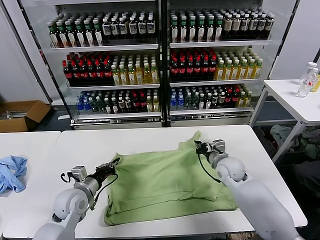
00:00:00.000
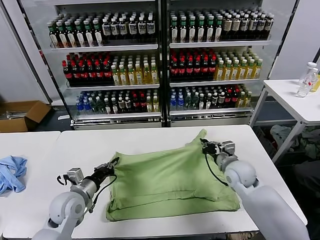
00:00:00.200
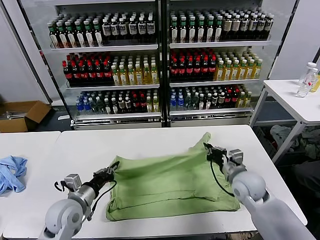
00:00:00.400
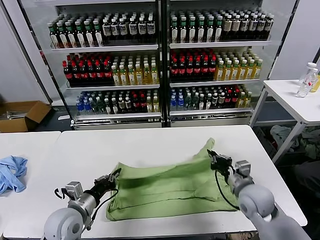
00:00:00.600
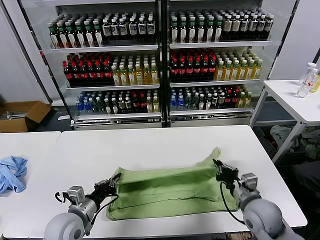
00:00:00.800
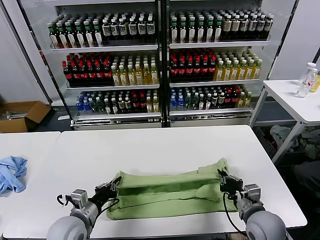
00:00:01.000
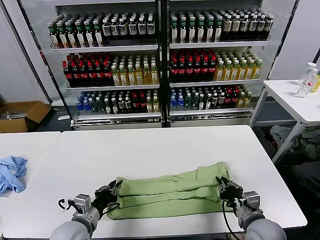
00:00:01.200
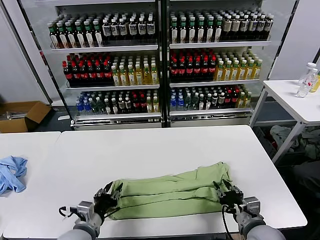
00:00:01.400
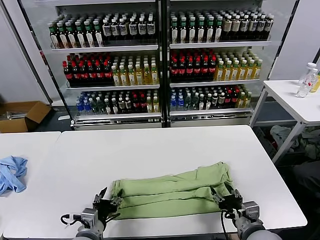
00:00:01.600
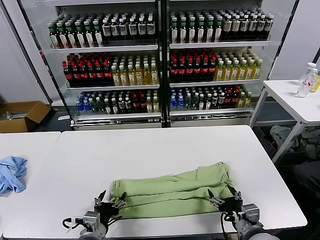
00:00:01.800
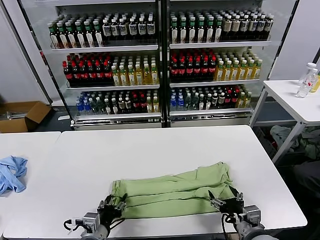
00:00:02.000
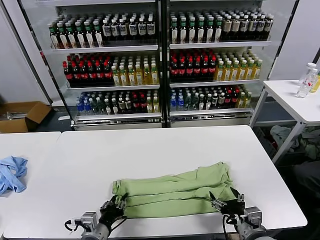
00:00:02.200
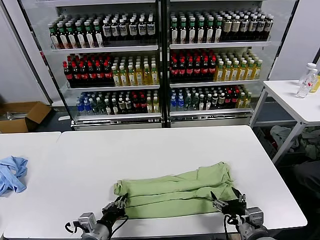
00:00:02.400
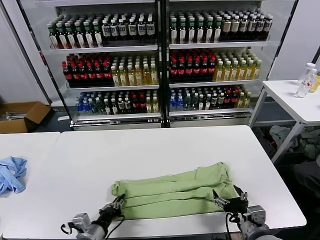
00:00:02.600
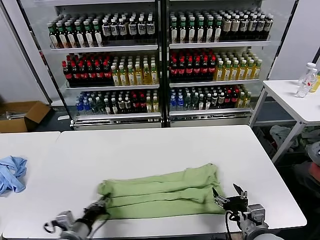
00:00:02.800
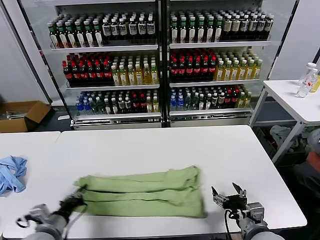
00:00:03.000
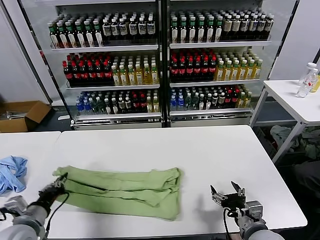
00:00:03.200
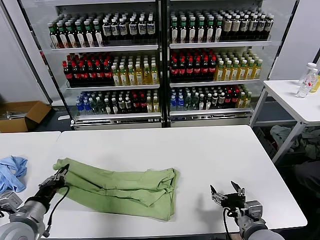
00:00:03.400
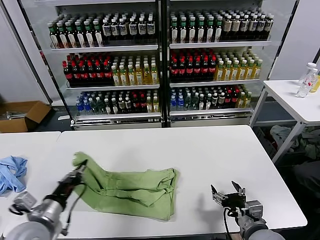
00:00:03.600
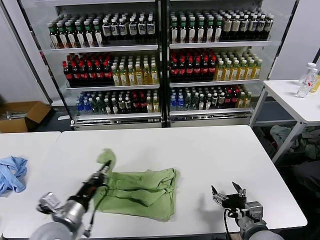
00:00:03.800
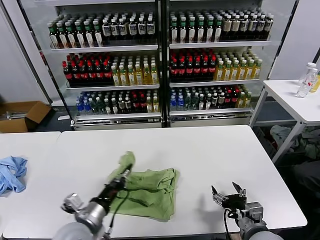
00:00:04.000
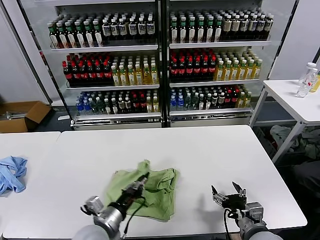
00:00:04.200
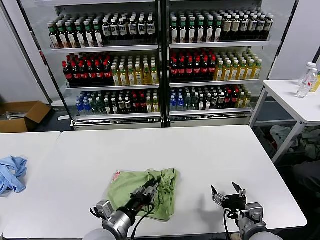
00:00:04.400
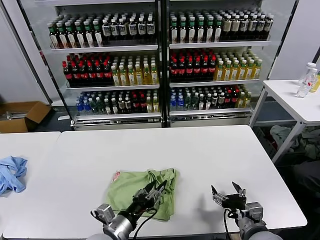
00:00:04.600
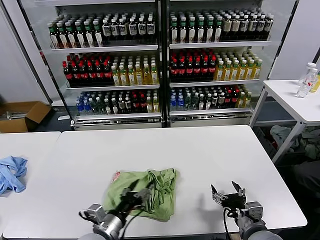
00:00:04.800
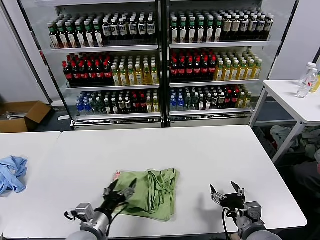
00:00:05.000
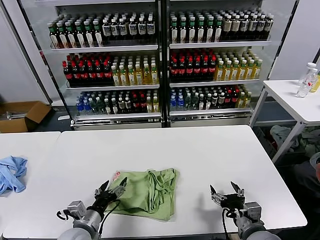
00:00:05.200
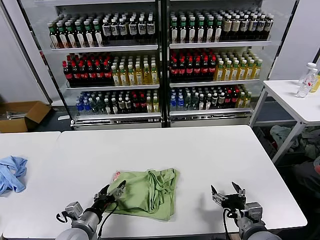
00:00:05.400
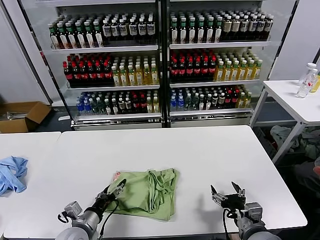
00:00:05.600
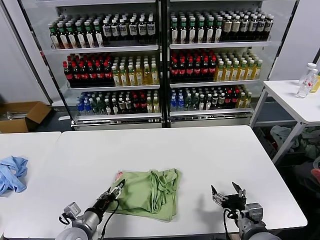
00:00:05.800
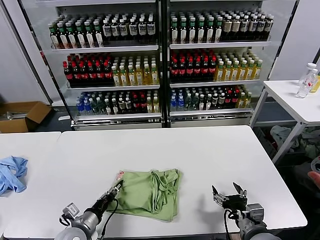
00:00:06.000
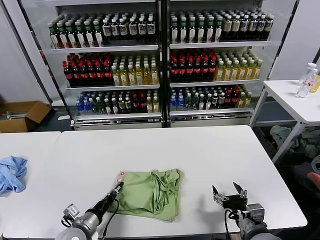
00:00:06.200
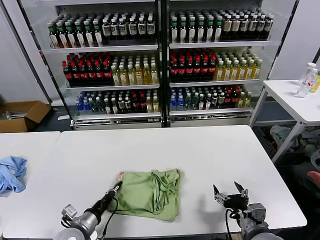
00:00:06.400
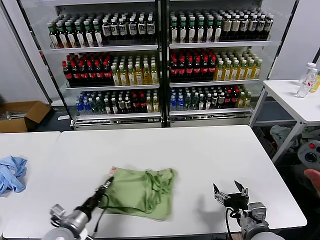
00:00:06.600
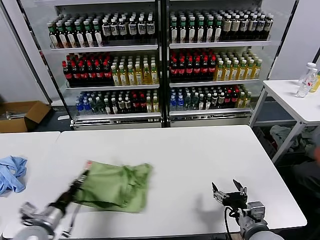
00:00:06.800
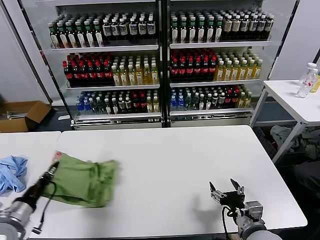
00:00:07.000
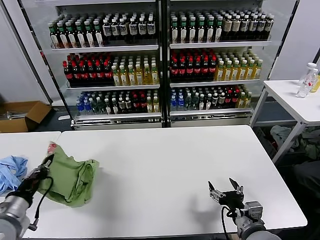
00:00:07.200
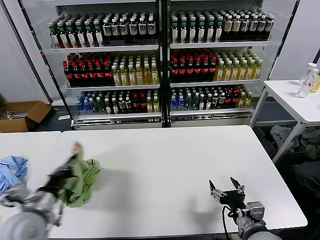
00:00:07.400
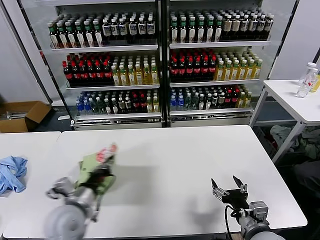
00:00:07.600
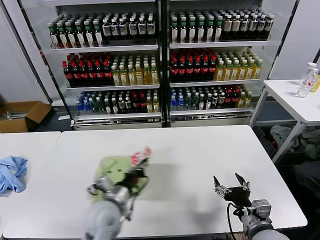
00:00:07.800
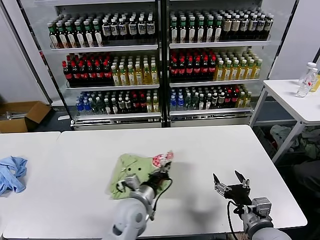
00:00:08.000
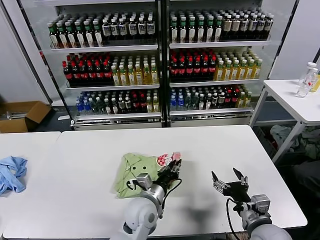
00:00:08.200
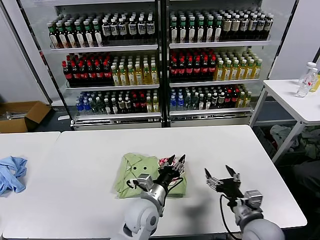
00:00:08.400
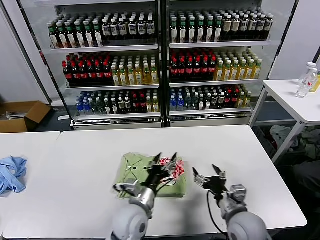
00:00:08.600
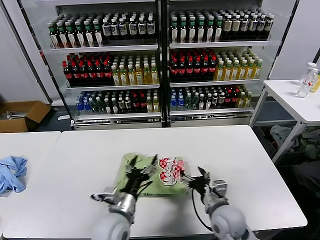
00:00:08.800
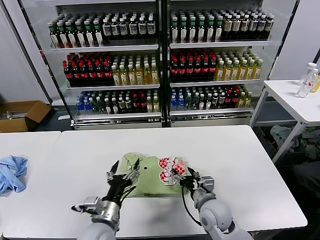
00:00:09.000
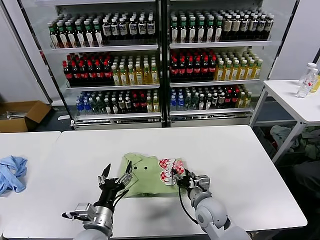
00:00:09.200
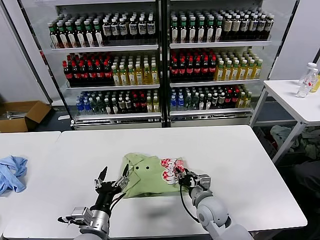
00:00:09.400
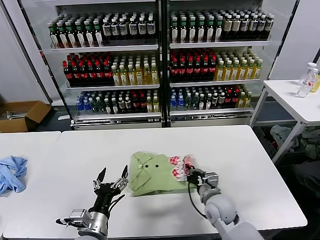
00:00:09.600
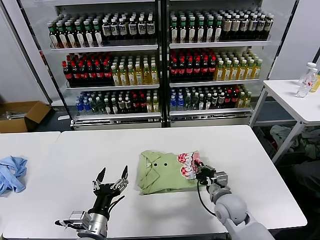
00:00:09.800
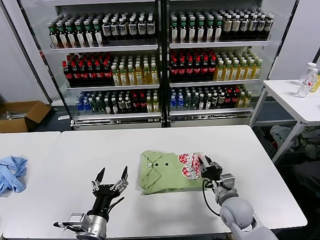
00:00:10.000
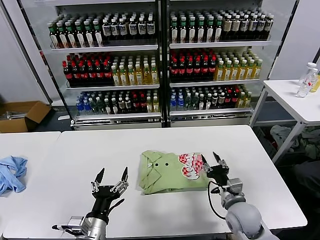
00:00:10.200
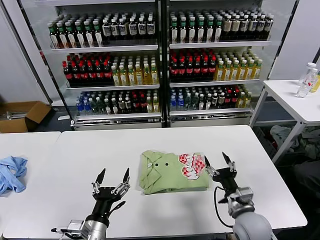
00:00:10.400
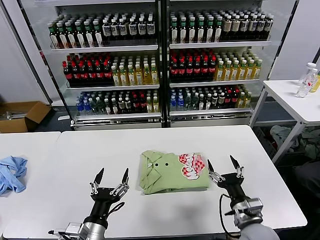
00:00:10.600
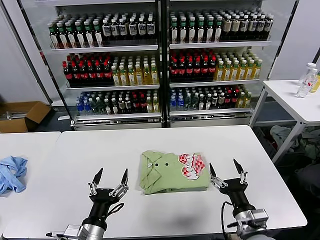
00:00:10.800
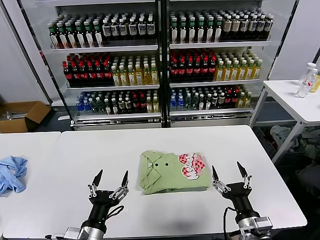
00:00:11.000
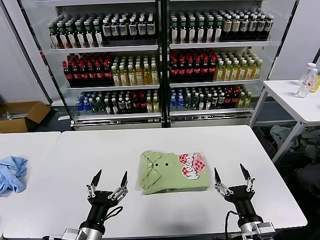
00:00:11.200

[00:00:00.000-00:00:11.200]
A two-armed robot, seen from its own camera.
Task of the whole recording: fold and organize the clothes.
Step, 00:00:00.000 to 00:00:01.200: use both grippers to drag the upper edge of the fabric backward and fold it over the lower edge.
Step, 00:00:01.600 to 00:00:02.400: use the left gripper to clamp the left edge of the fabric.
Step, 00:00:02.600 to 00:00:04.400: use the left gripper to drag the left edge of the fabric to the left and folds it over the right edge.
Step, 00:00:04.600 to 00:00:08.200: Flip the folded clothes over with left gripper.
Step, 00:00:08.400 to 00:00:10.000: Drag the clothes to the center of the table.
00:00:00.000 to 00:00:01.600: The left gripper is displaced backward and to the right by some 15 cm, and opens; the right gripper goes approximately 25 cm backward, and opens up.
00:00:01.600 to 00:00:03.200: The left gripper shifts some 15 cm to the left, and closes.
00:00:03.200 to 00:00:04.800: The left gripper goes about 20 cm to the right, and opens.
00:00:04.800 to 00:00:06.400: The left gripper shifts about 10 cm to the left and downward, and closes.
00:00:06.400 to 00:00:08.000: The left gripper is displaced to the right and upward by roughly 20 cm.
00:00:08.000 to 00:00:09.600: The right gripper is displaced forward, to the left and downward by approximately 15 cm, and closes up. Meanwhile the left gripper heads backward and to the left, covering roughly 15 cm, and opens up.
00:00:09.600 to 00:00:11.200: The right gripper moves backward and to the right, about 20 cm, and opens, while the left gripper is displaced backward by roughly 5 cm.
